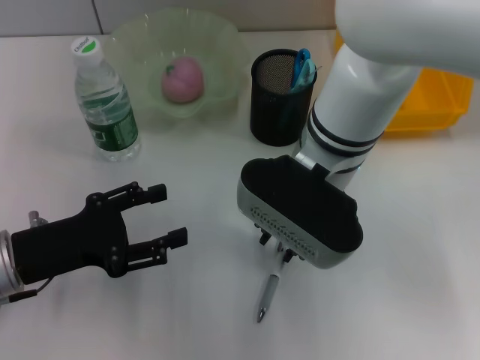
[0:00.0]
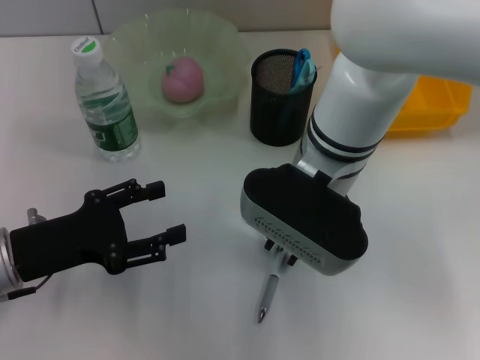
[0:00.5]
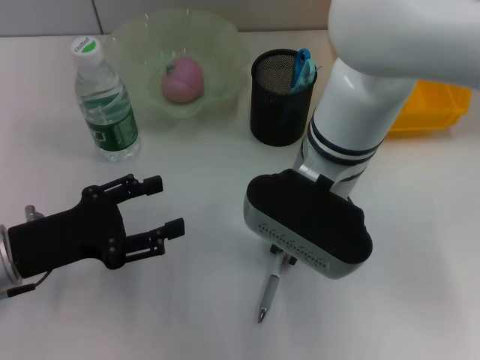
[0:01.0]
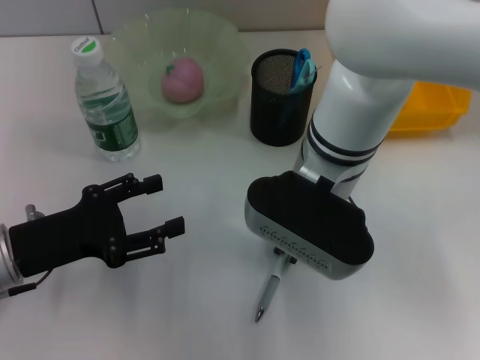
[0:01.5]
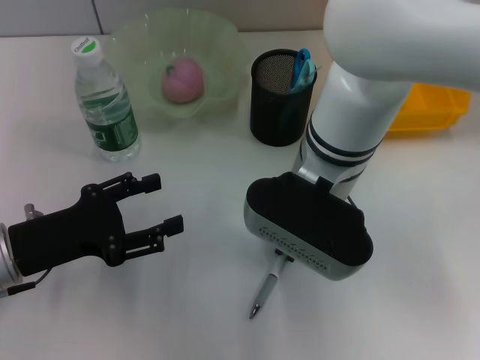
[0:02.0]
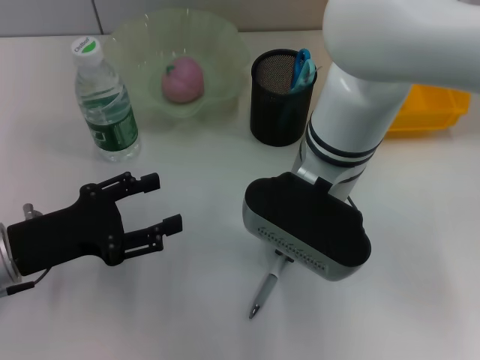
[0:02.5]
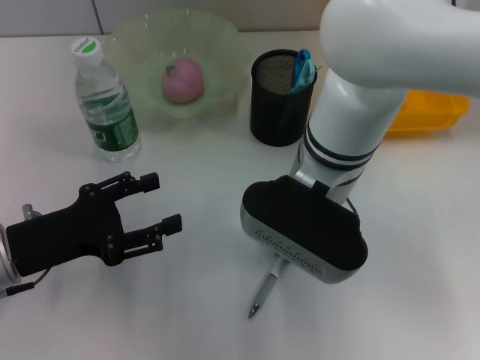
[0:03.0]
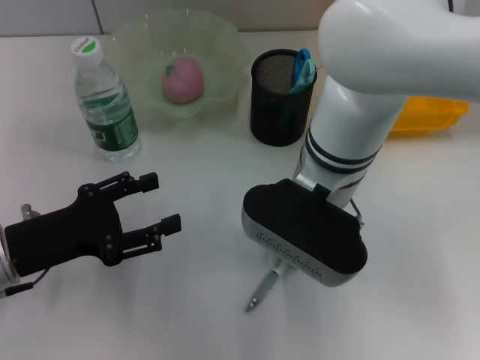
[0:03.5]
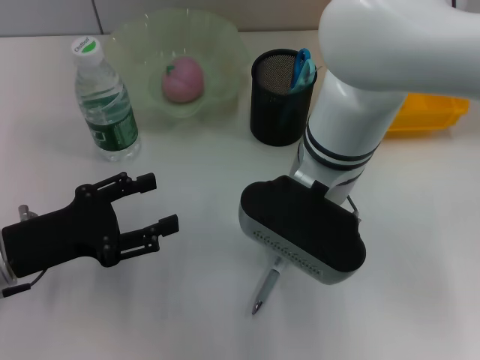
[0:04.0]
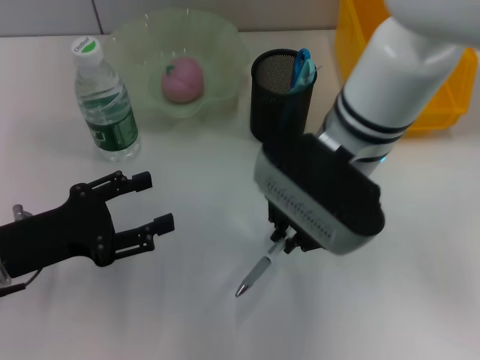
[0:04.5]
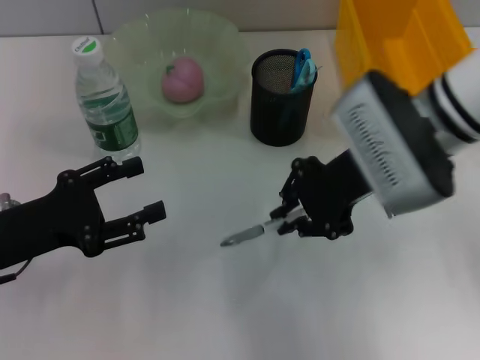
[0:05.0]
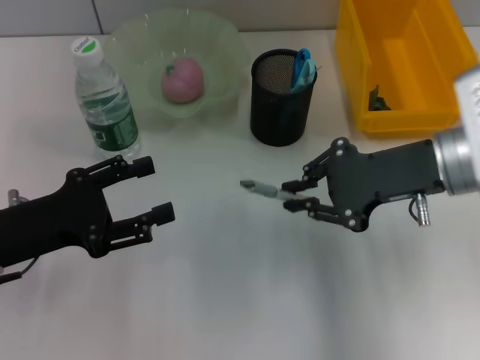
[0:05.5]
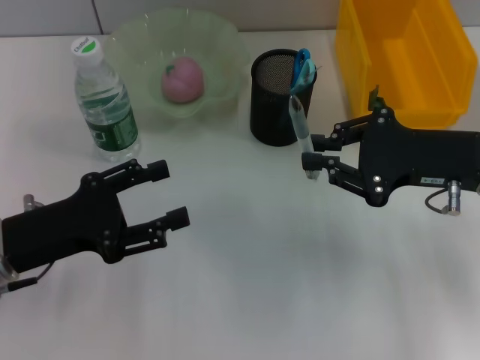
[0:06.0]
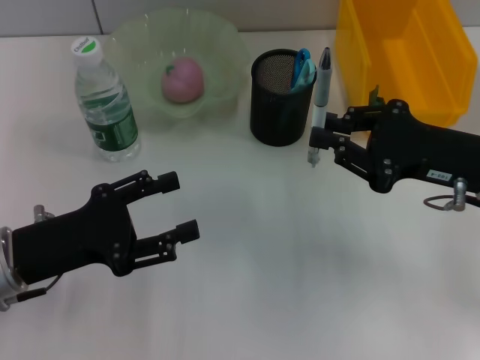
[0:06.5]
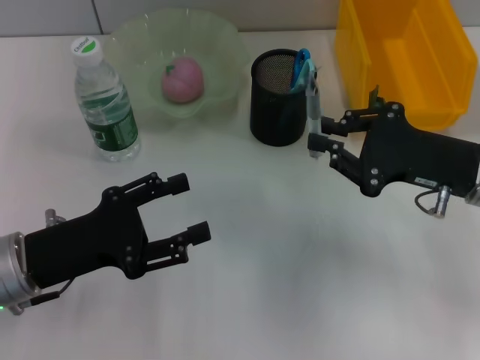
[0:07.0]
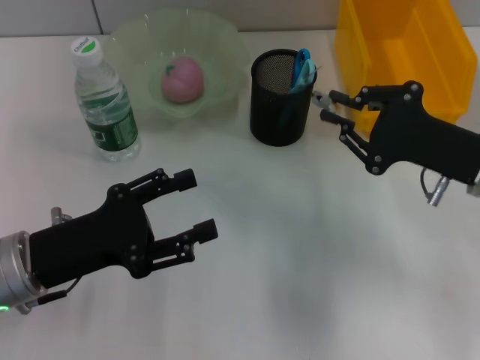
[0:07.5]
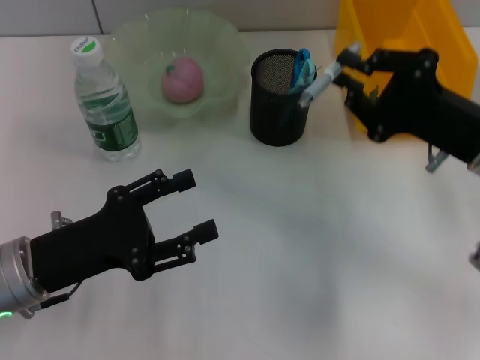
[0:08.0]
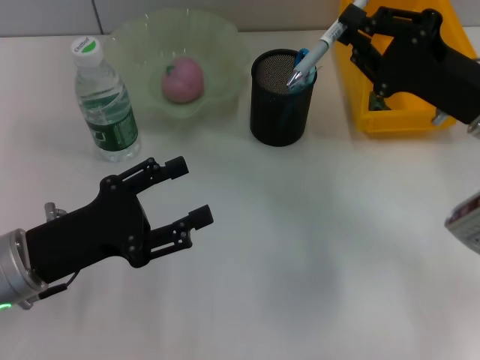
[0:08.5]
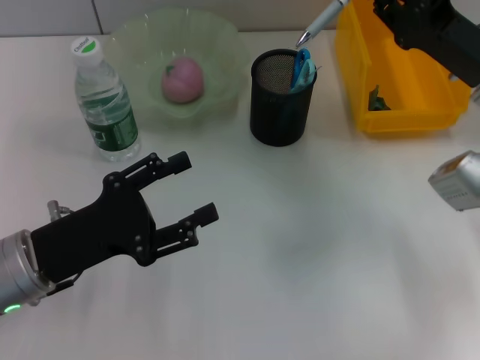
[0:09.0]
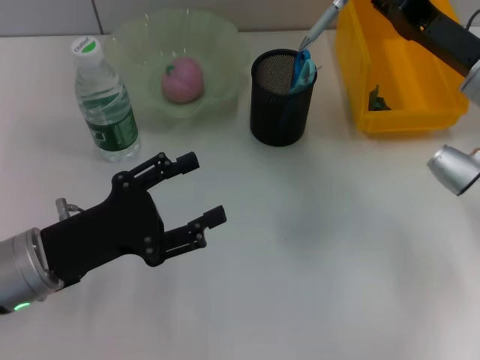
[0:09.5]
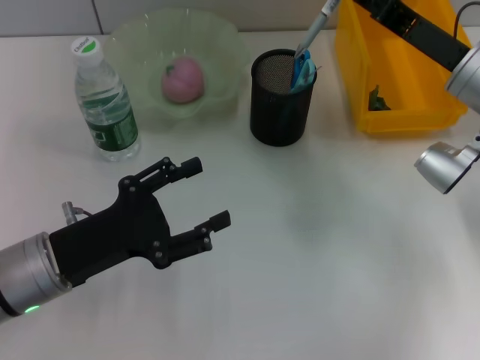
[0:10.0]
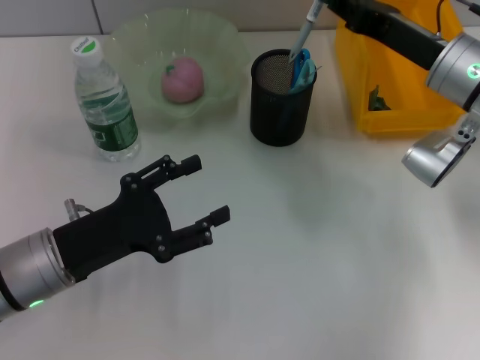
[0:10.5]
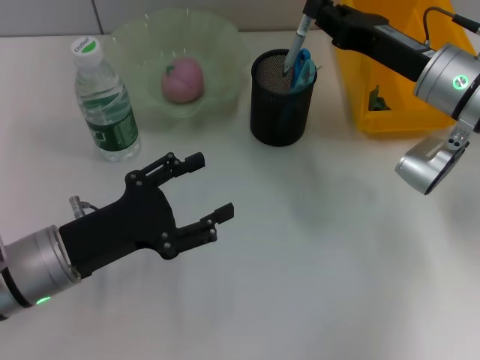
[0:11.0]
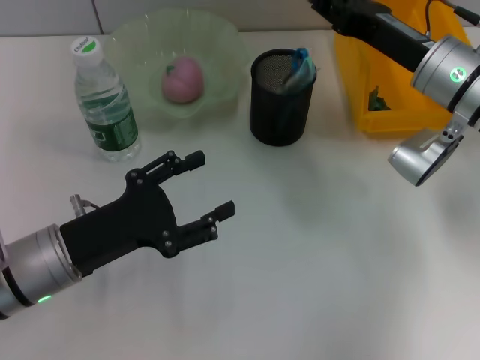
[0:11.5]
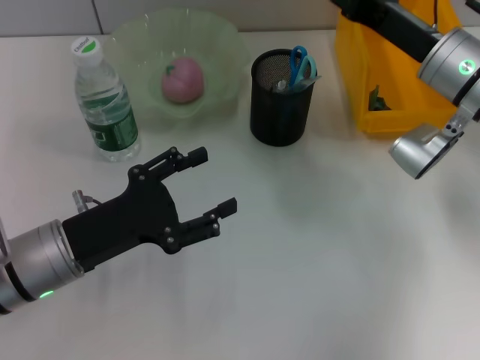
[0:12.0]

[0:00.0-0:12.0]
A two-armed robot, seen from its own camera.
Step, 0:00.0 to 0:04.0: Grab the gray spring-action pen with the right hand.
Step, 0:04.5 to 0:11.5: Place the gray spring-action pen into the pen holder with the right hand.
0:00.0 to 0:02.0: The right gripper closes.
0:02.0 to 0:04.0: The two grippers keep their place.
0:04.0 to 0:06.0: The right gripper shifts about 20 cm to the right.
0:08.0 to 0:10.0: The right gripper shifts some 5 cm forward.
0:10.0 to 0:12.0: The right gripper opens.

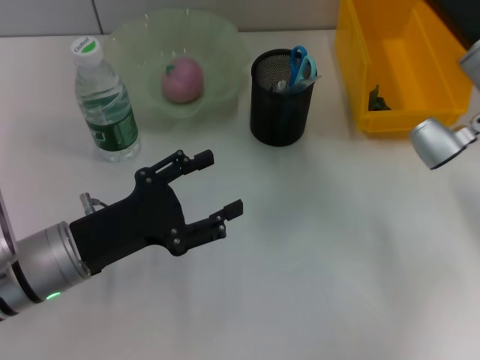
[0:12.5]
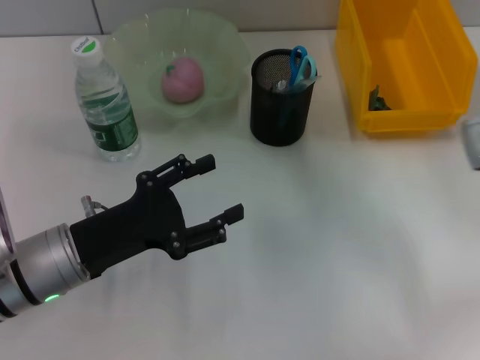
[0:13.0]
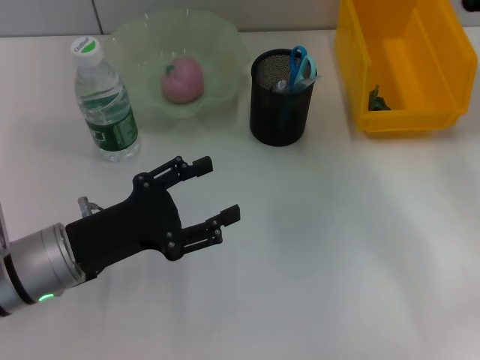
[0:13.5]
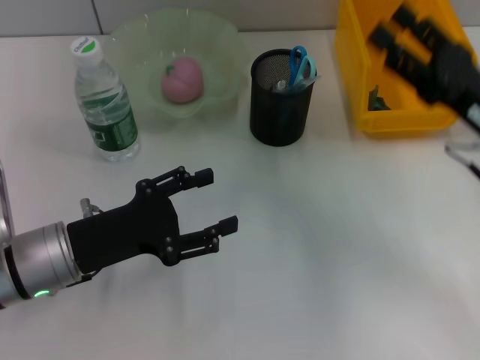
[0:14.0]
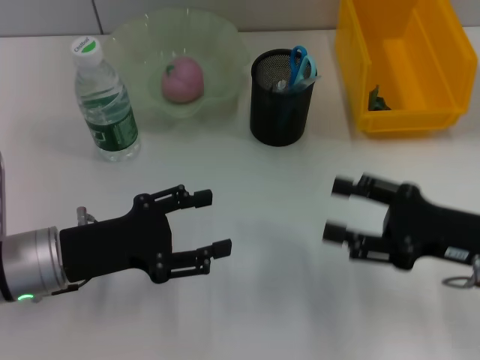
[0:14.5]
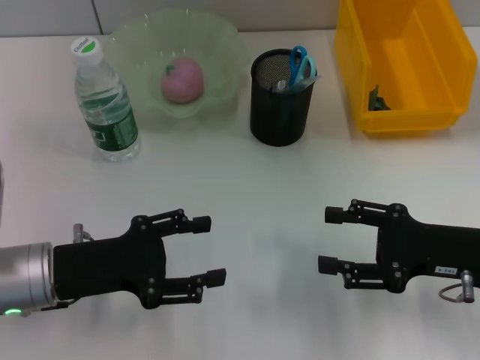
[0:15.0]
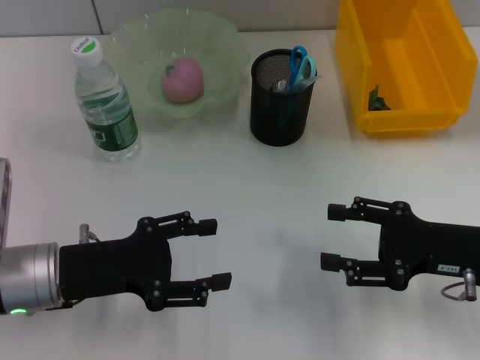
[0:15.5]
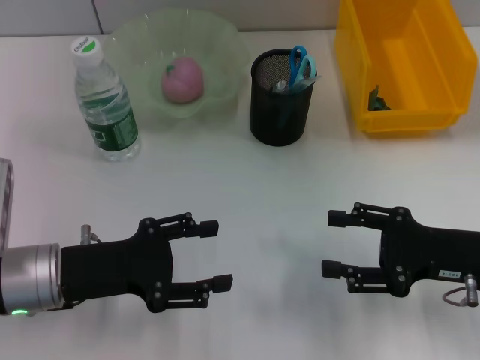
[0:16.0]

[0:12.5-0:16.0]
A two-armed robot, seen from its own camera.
0:12.5 to 0:14.5: The right gripper heads backward and downward, covering roughly 15 cm.
0:14.5 to 0:16.0: The grippers move only a little.
